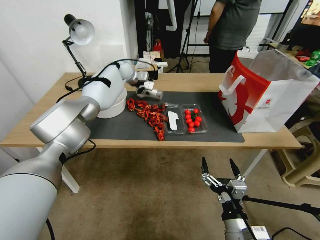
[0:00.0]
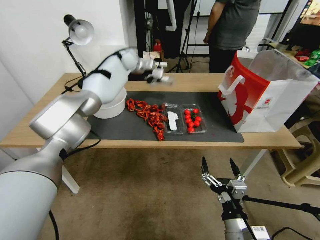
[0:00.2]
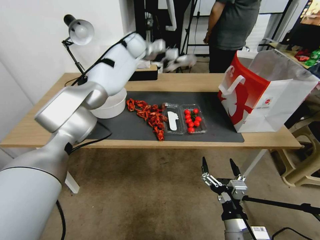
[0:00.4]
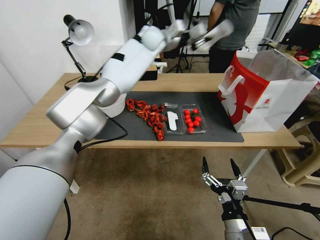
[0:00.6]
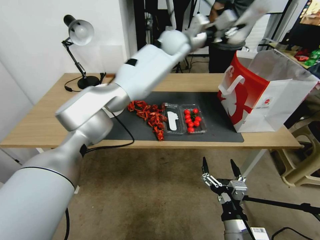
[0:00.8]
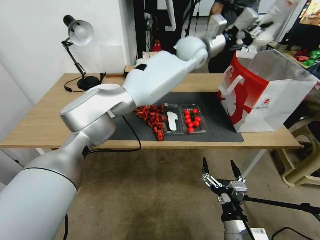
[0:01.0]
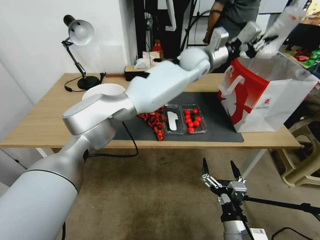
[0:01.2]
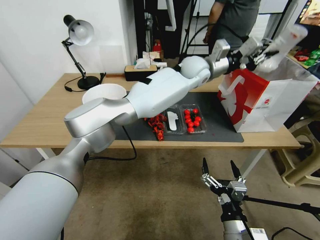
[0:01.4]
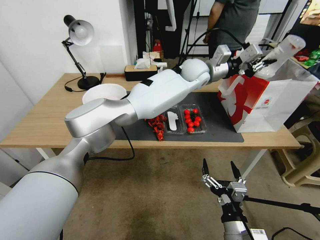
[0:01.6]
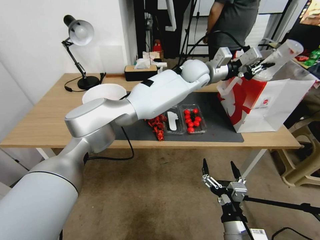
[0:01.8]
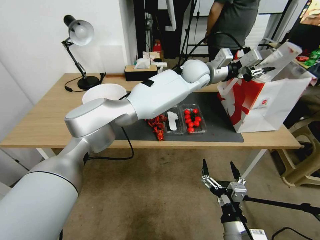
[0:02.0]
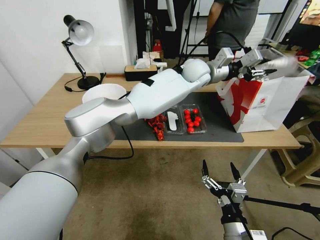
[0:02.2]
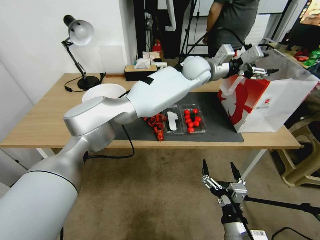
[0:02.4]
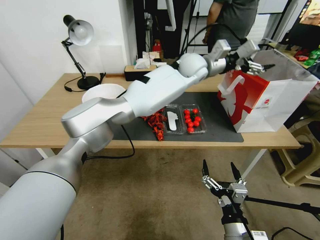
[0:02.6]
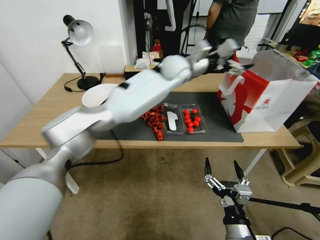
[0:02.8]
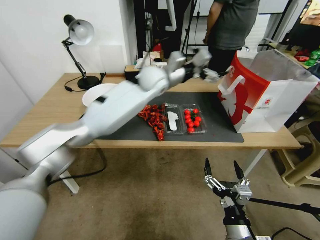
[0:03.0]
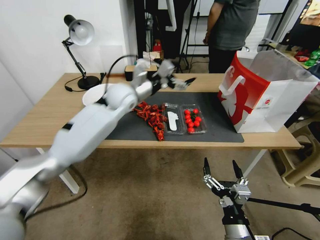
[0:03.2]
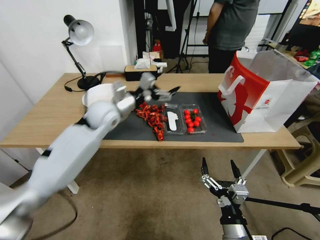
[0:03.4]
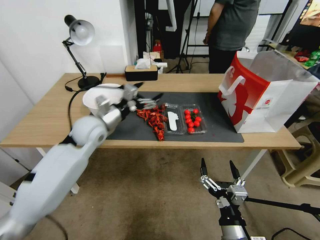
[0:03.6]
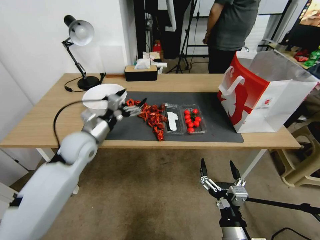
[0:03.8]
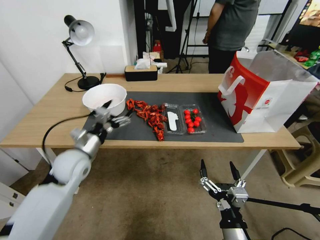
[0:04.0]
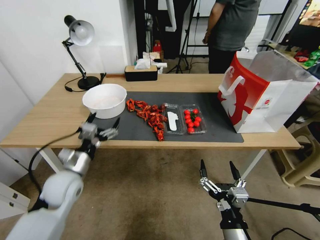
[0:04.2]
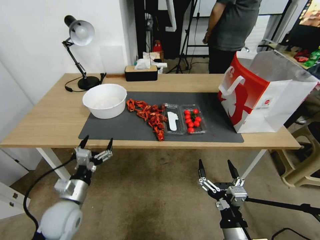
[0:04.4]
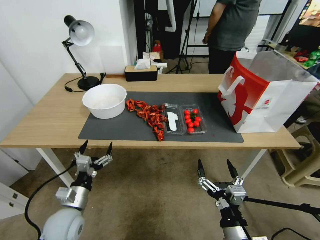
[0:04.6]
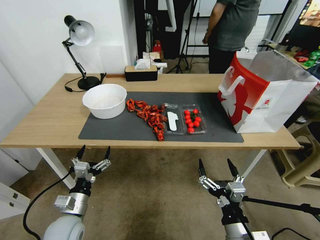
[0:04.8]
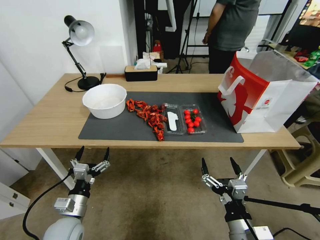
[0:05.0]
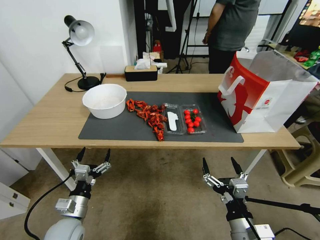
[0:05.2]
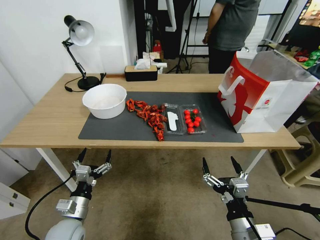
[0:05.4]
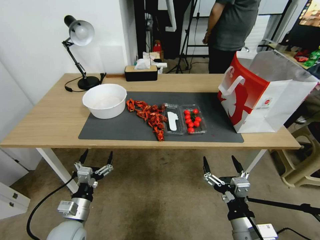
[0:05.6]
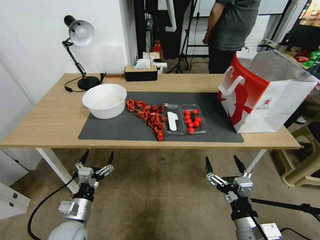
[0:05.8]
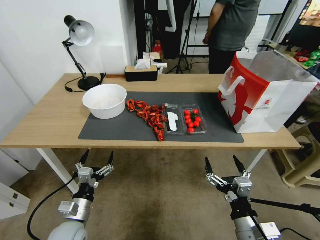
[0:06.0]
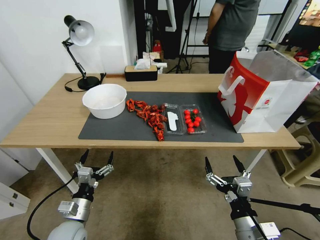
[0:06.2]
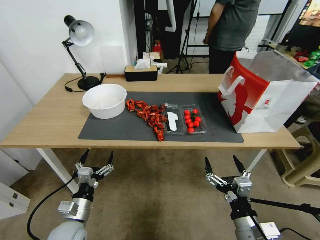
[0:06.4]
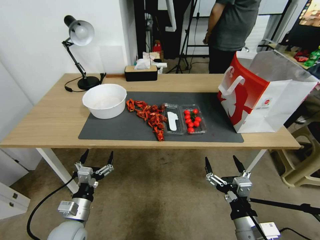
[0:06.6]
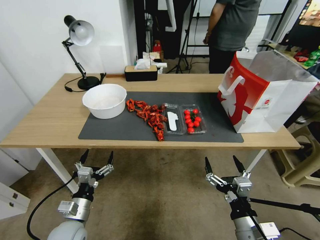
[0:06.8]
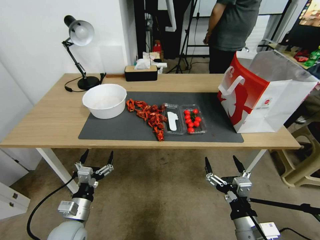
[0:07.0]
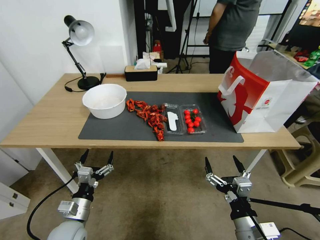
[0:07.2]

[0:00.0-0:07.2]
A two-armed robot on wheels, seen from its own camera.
0:00.0 to 0:01.4: The left gripper goes approximately 30 cm to the right and backward.
0:01.4 to 0:02.8: The left gripper shifts roughly 10 cm to the left, and opens.
0:02.8 to 0:04.4: The left gripper heads backward, to the left and downward, covering approximately 50 cm.
0:04.4 to 0:05.8: The left gripper travels downward by approximately 5 cm.
0:05.8 to 0:07.2: The two grippers keep their place.
